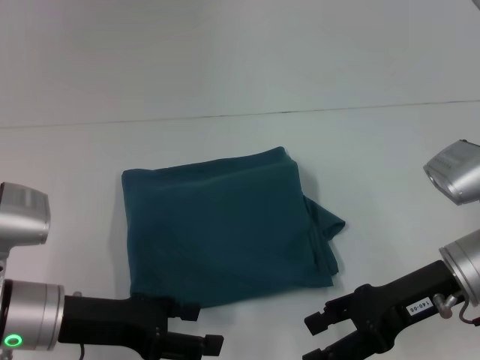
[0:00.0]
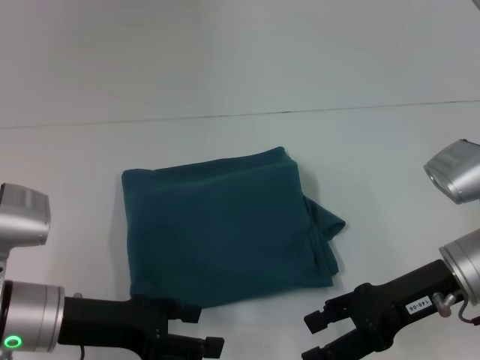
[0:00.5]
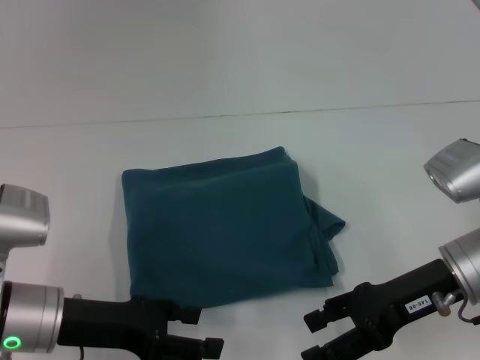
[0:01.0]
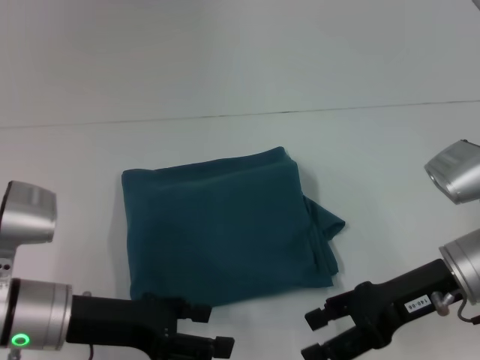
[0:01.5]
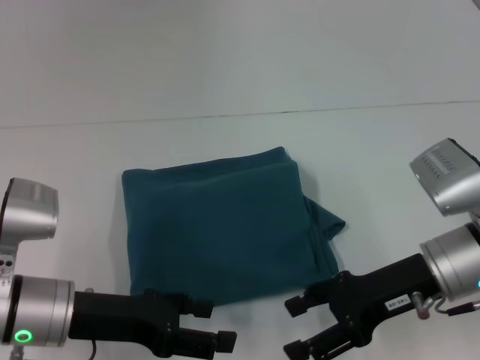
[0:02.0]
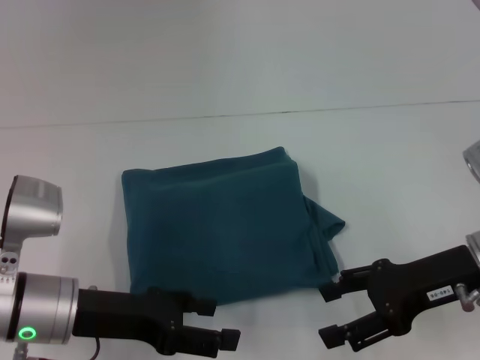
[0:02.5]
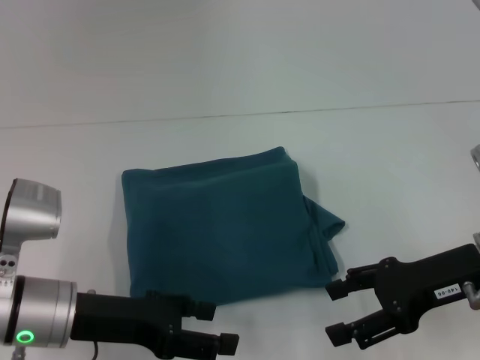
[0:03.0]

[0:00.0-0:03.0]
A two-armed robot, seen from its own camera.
0:00.0 to 0:01.5: The two grippers keep their place.
0:01.5 to 0:03.0: The grippers stay close to where they were, moving slightly.

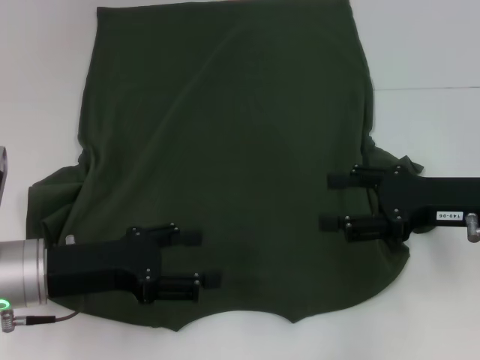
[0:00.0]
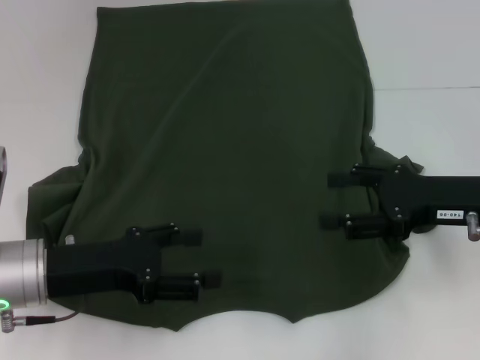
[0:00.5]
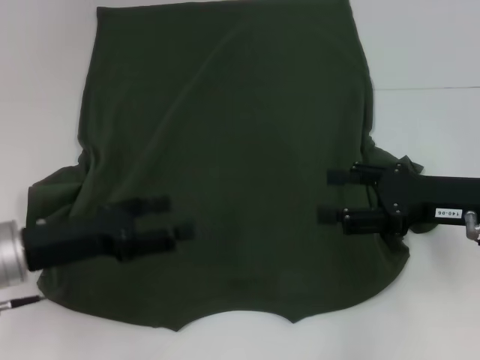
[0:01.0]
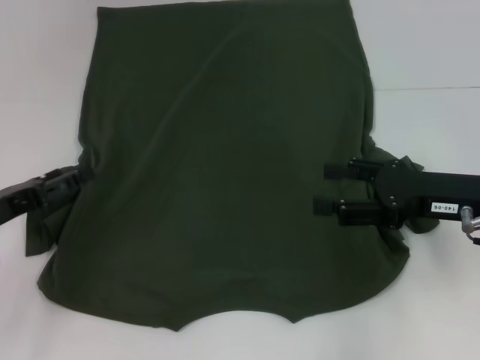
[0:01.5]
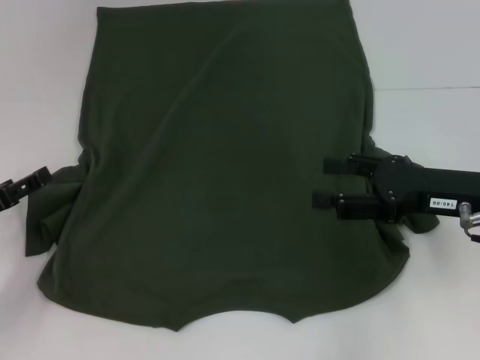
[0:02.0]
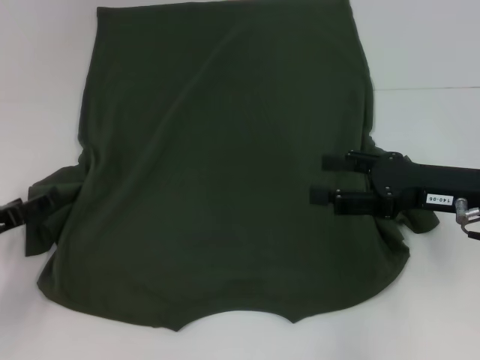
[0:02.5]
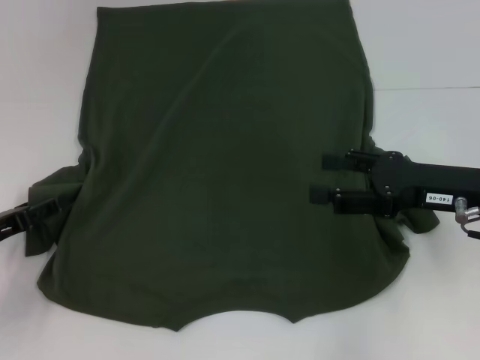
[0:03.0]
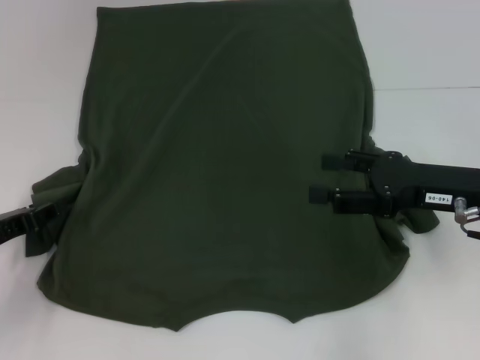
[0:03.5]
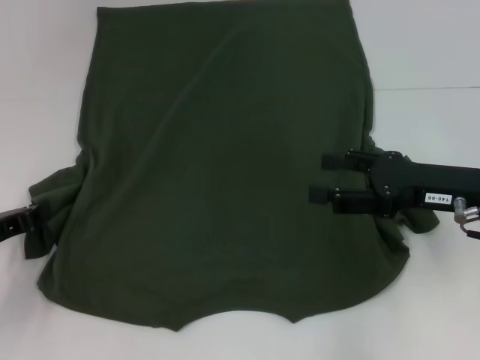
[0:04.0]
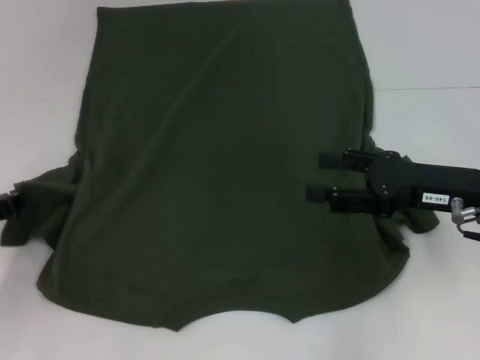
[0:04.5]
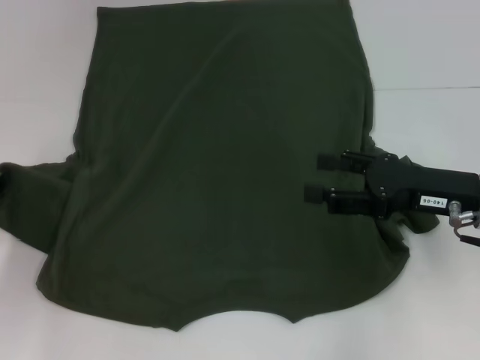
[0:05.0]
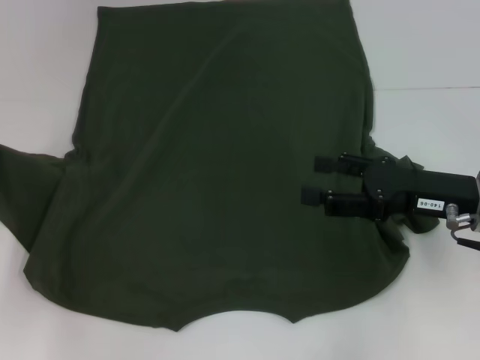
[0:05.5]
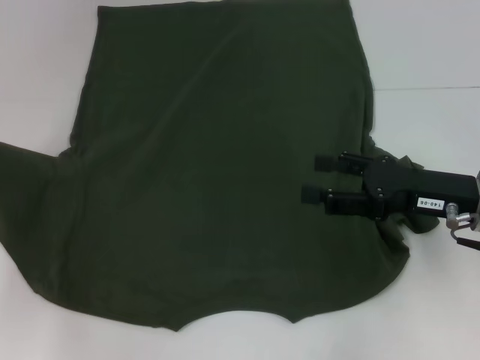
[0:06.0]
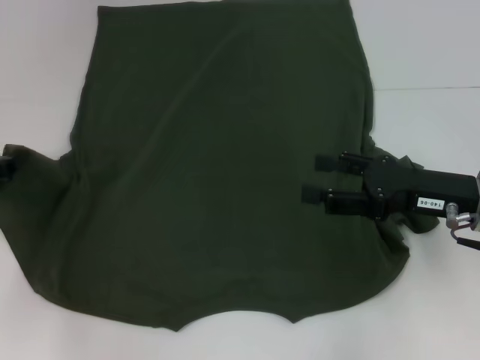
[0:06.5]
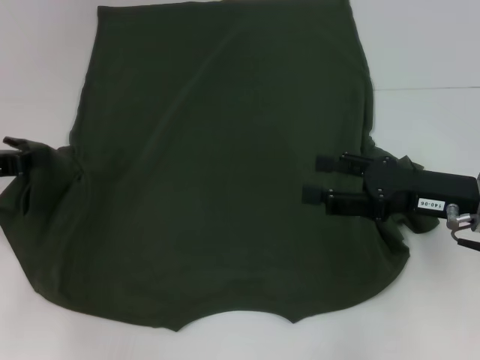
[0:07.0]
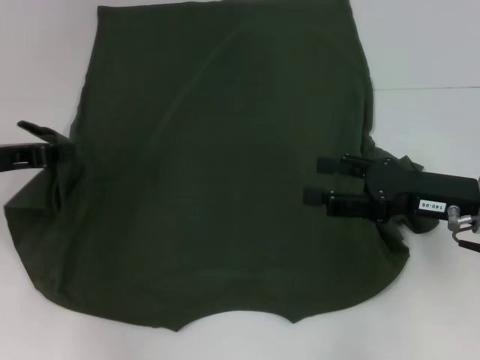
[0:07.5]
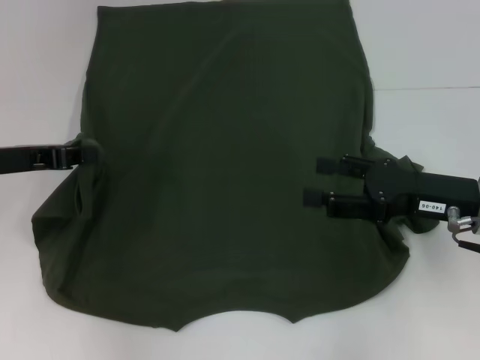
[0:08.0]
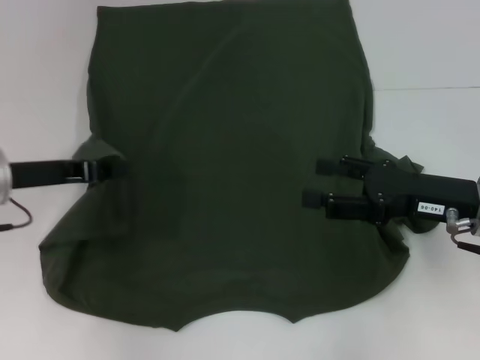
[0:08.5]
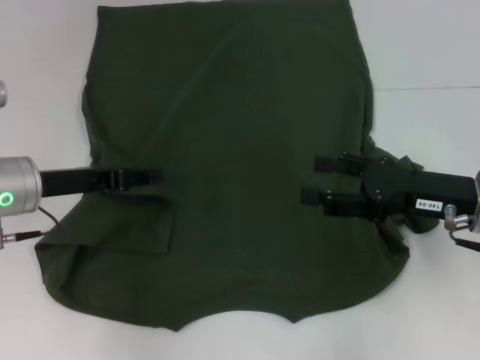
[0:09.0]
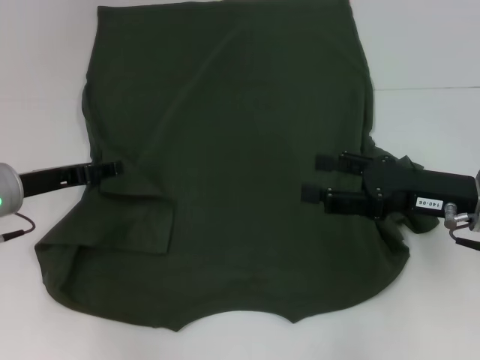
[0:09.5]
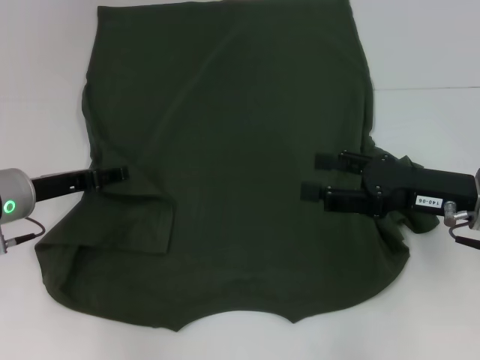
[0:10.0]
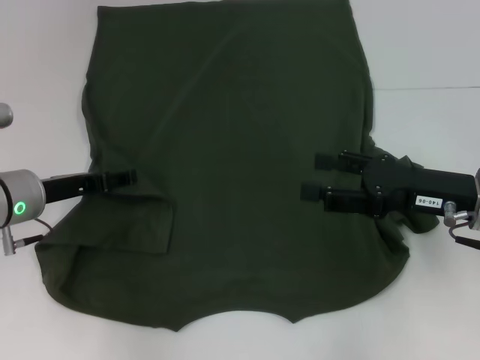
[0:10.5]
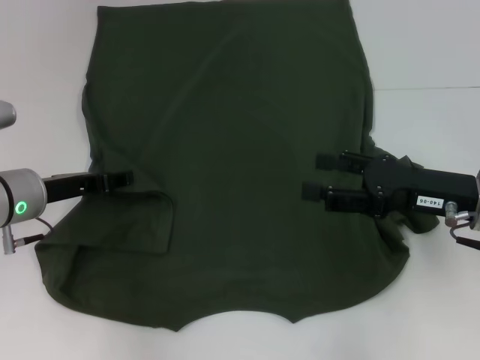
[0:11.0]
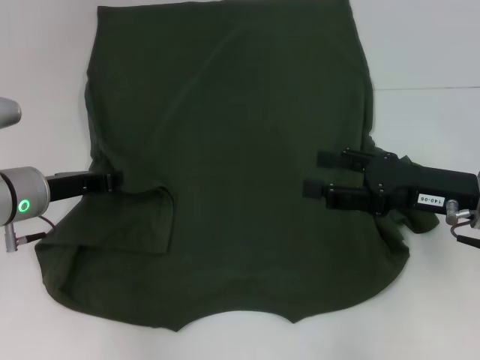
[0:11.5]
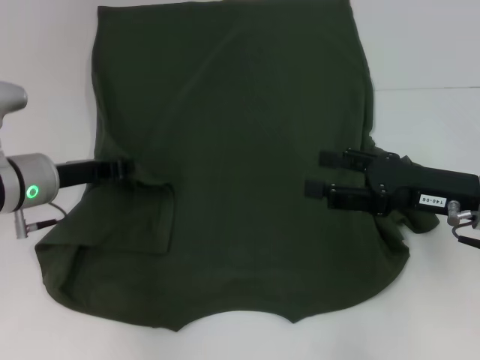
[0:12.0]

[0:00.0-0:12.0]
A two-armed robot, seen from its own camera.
0:00.0 to 0:02.0: The left gripper heads to the left, covering about 10 cm.
0:02.0 to 0:04.0: The left gripper closes.
0:04.0 to 0:06.0: The left gripper goes about 10 cm upward and forward.
0:06.0 to 0:08.0: The left gripper moves to the right, about 5 cm.
0:08.0 to 0:10.0: The left gripper travels downward by roughly 5 cm, and opens its fingers.
0:10.0 to 0:12.0: The left gripper closes up.

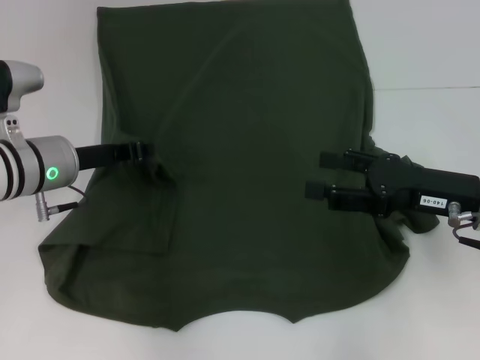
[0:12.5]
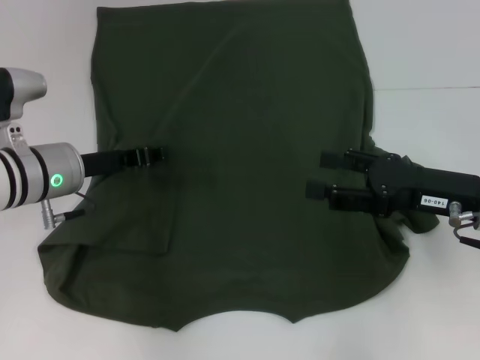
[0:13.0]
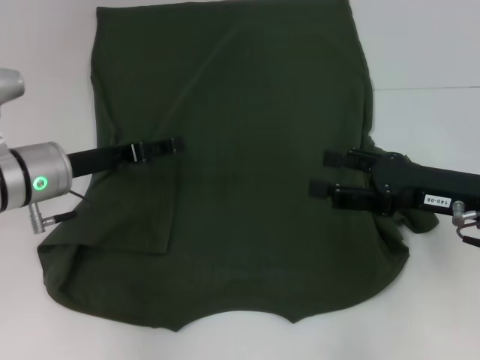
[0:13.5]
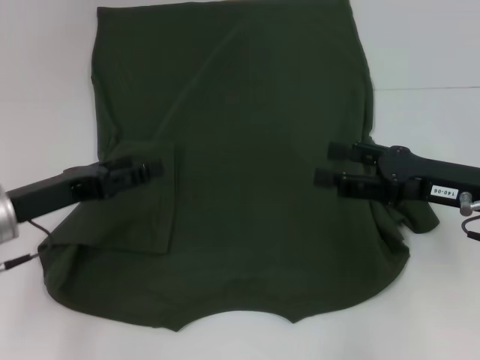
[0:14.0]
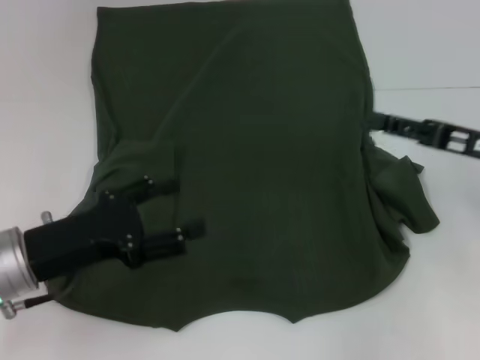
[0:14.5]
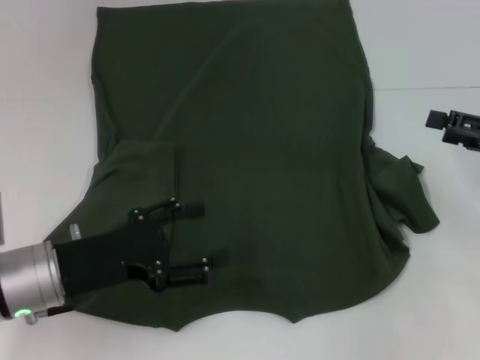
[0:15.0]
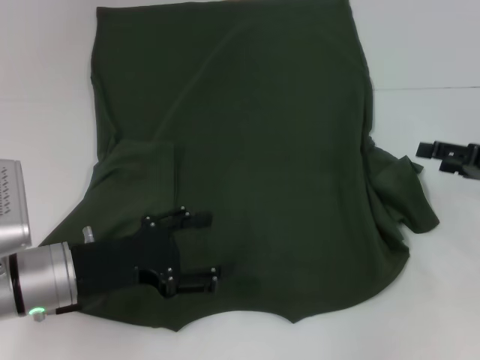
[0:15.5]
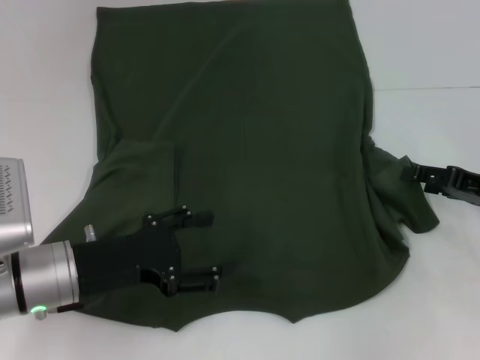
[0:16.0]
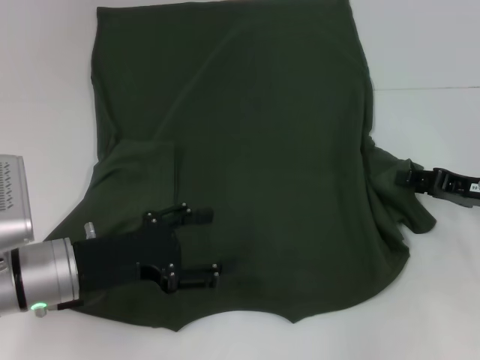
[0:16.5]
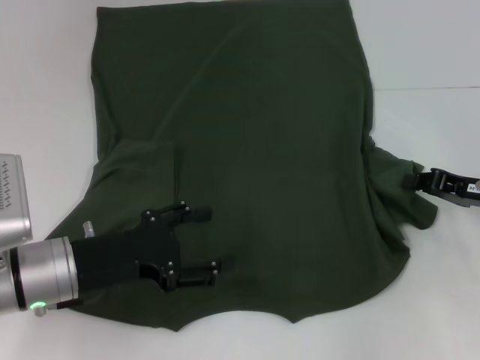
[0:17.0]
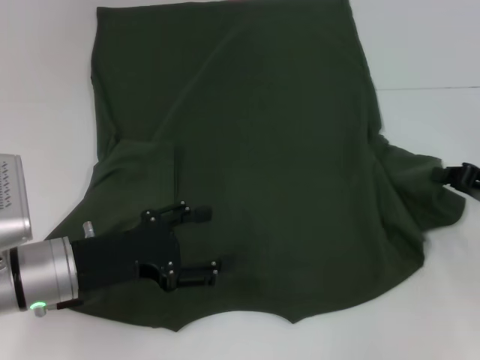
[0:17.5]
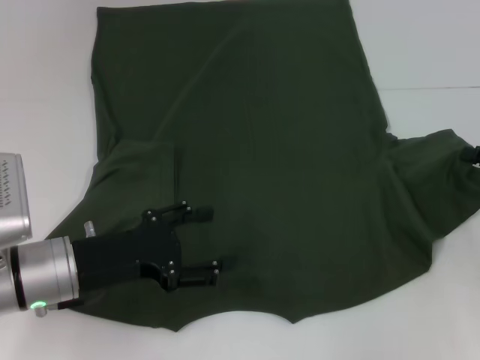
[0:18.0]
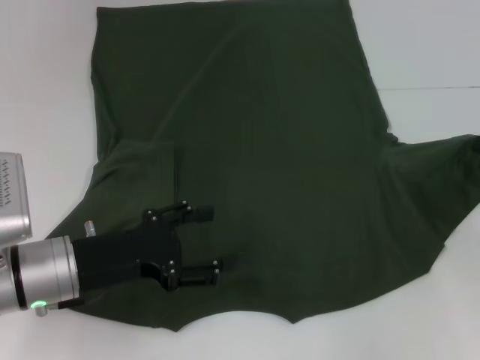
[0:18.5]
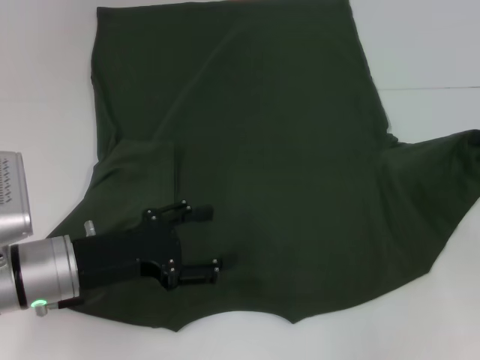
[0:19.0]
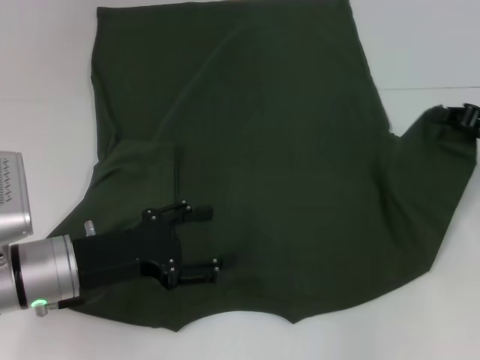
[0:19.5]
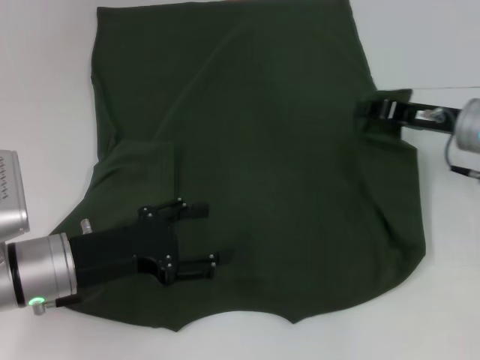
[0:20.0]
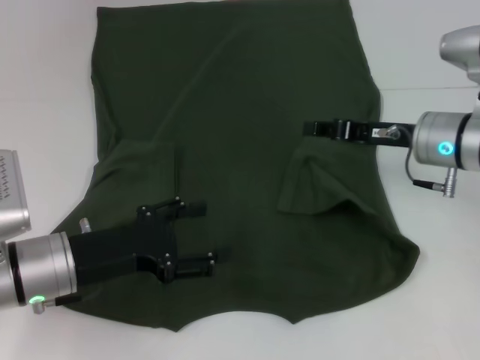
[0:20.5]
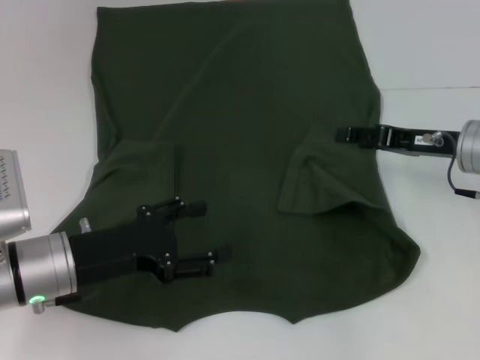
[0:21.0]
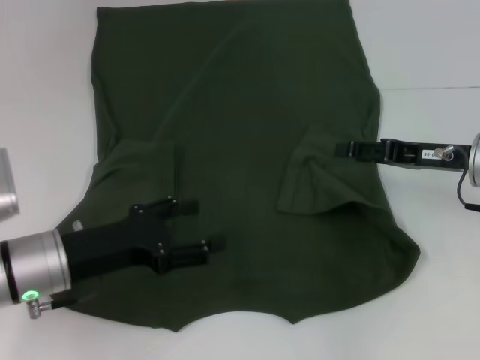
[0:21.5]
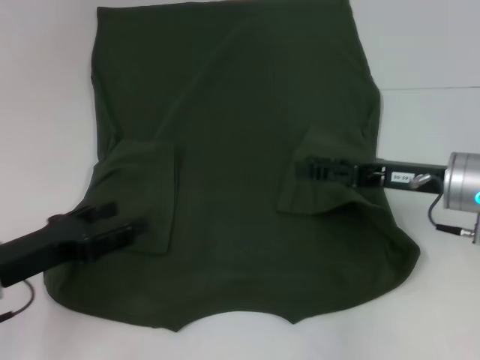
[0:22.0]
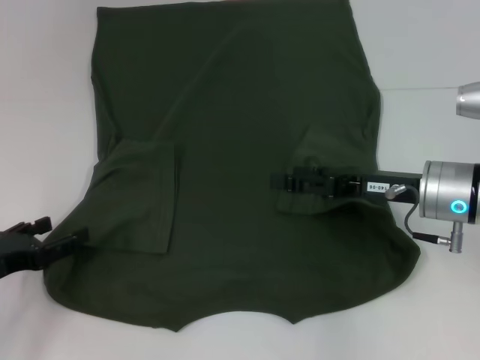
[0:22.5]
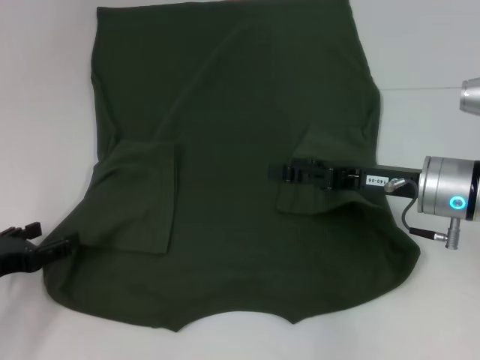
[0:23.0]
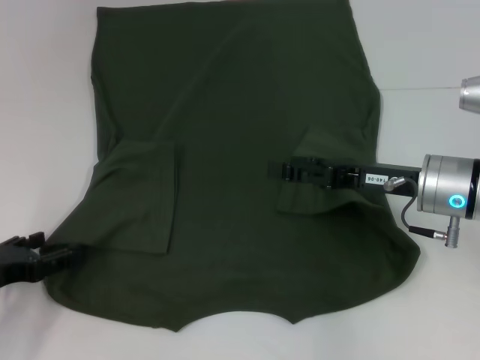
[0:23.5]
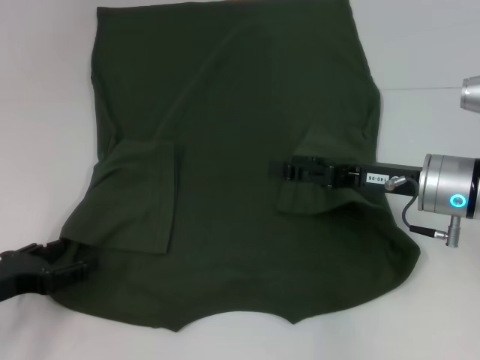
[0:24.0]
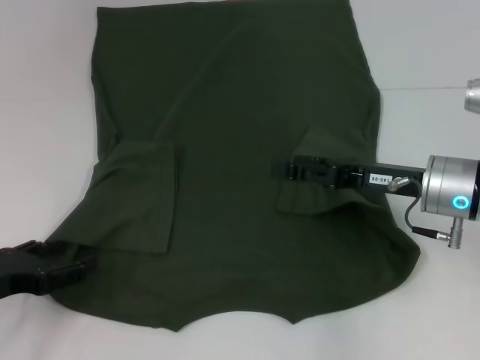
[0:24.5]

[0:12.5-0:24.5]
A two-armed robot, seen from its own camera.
Step, 0:13.0 to 0:20.0: Fold the bottom right sleeve with your right hand.
0:12.5 to 0:14.5: The left gripper goes about 10 cm backward, and opens.
0:14.5 to 0:16.5: The right gripper is displaced downward by approximately 5 cm.
0:16.5 to 0:18.5: The right gripper goes about 5 cm to the right, and closes.
0:18.5 to 0:20.5: The right gripper goes about 15 cm to the left.
0:20.5 to 0:22.5: The left gripper travels to the left by some 10 cm. The right gripper is displaced backward by roughly 5 cm, and opens up.
0:22.5 to 0:24.5: The grippers stay close to where they were, moving slightly.
